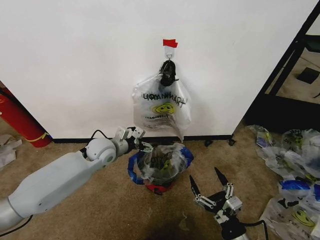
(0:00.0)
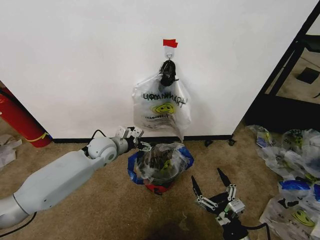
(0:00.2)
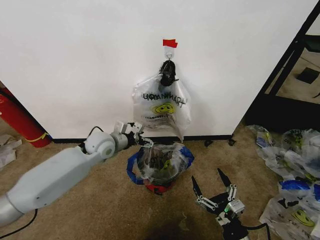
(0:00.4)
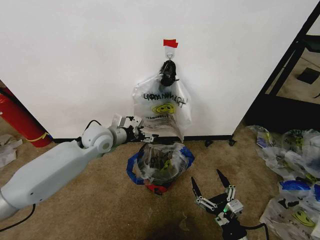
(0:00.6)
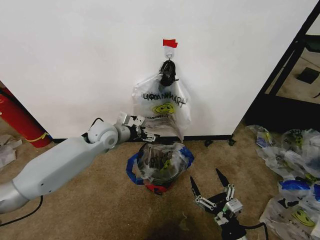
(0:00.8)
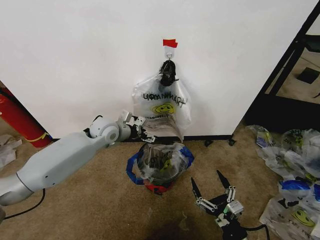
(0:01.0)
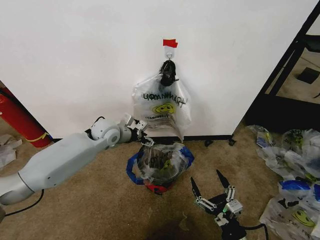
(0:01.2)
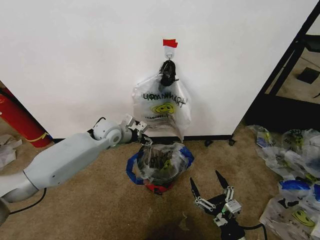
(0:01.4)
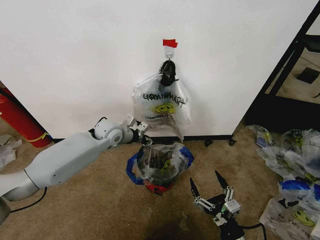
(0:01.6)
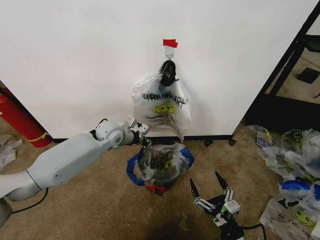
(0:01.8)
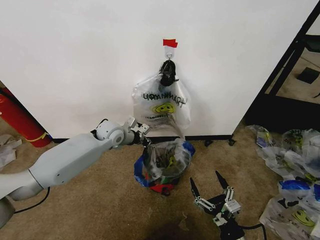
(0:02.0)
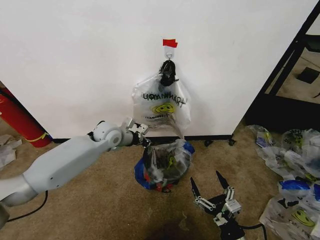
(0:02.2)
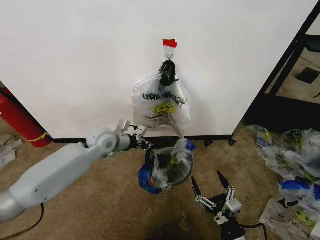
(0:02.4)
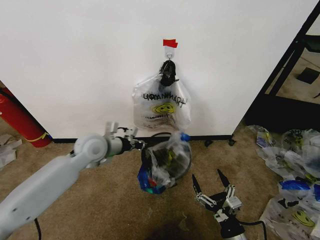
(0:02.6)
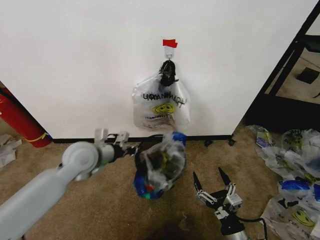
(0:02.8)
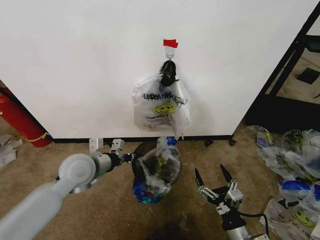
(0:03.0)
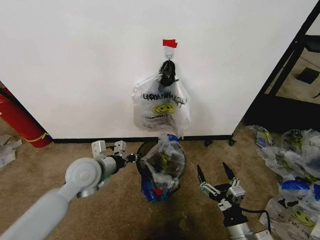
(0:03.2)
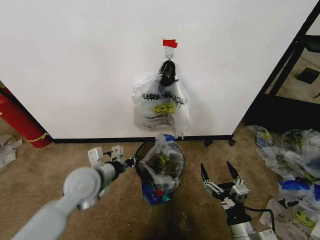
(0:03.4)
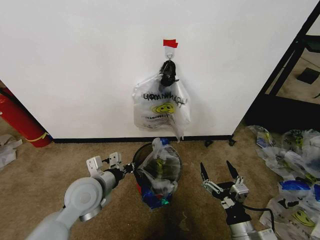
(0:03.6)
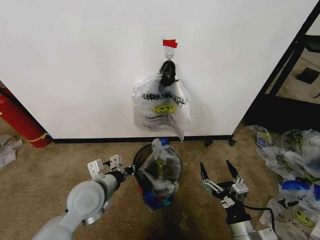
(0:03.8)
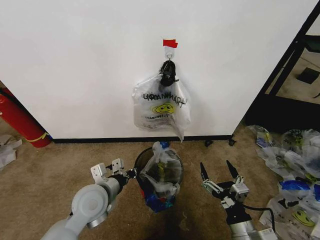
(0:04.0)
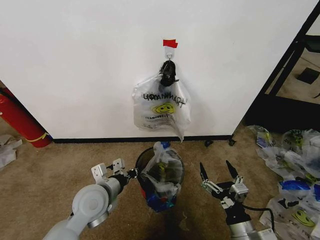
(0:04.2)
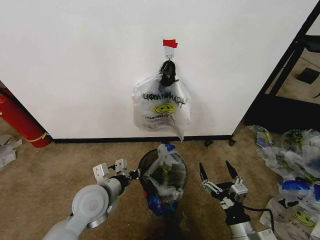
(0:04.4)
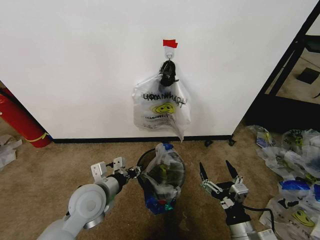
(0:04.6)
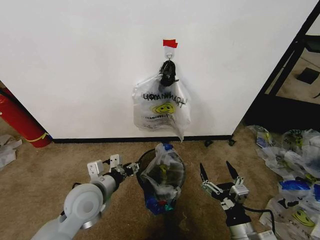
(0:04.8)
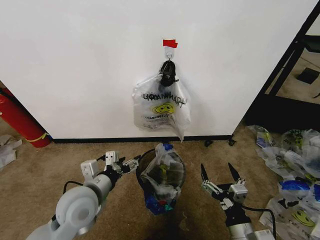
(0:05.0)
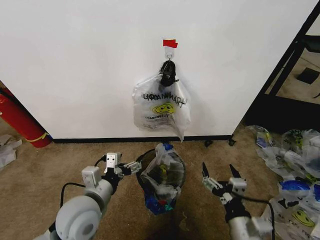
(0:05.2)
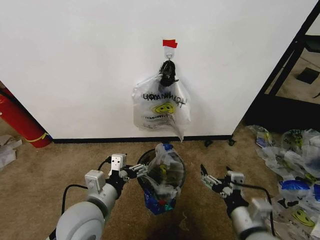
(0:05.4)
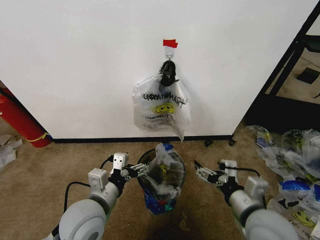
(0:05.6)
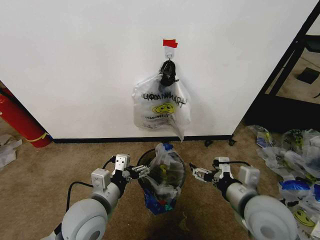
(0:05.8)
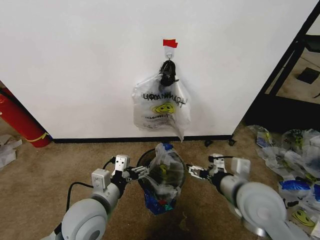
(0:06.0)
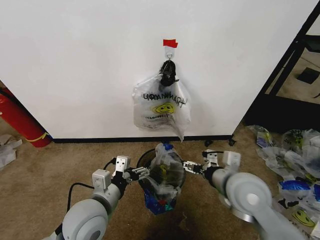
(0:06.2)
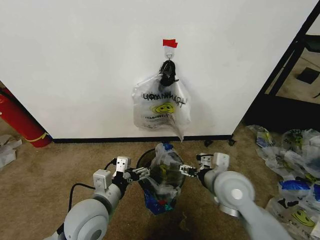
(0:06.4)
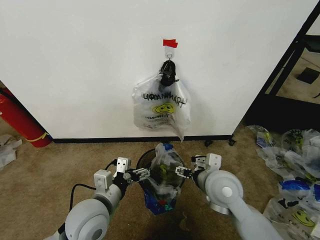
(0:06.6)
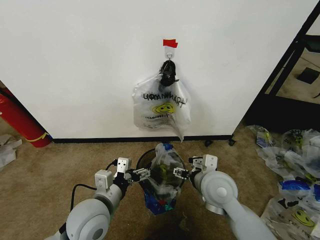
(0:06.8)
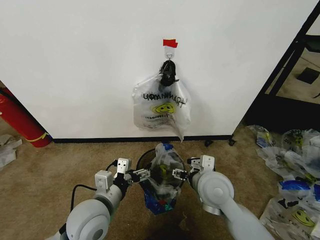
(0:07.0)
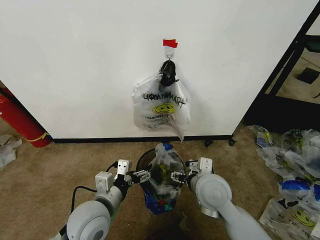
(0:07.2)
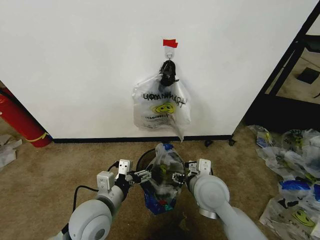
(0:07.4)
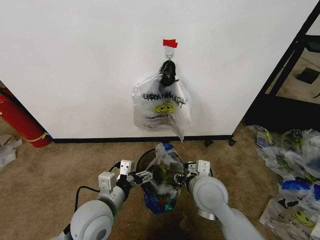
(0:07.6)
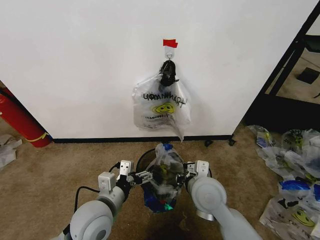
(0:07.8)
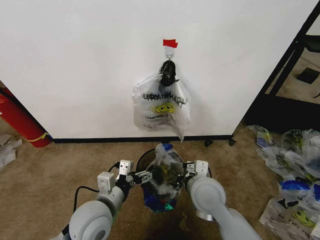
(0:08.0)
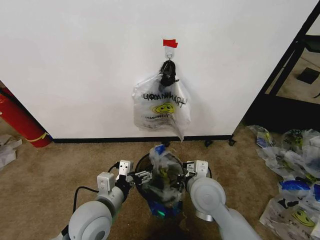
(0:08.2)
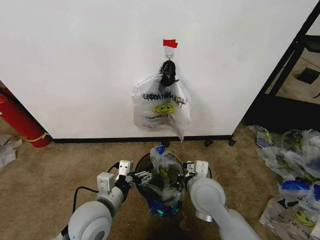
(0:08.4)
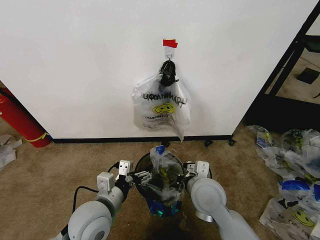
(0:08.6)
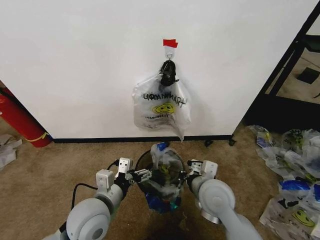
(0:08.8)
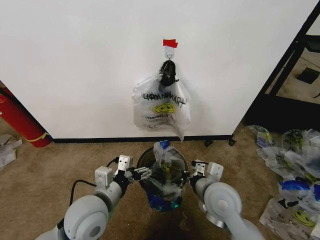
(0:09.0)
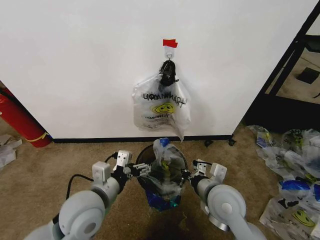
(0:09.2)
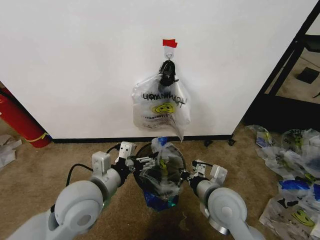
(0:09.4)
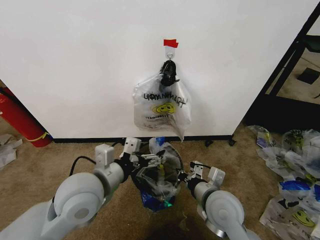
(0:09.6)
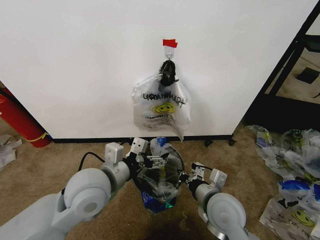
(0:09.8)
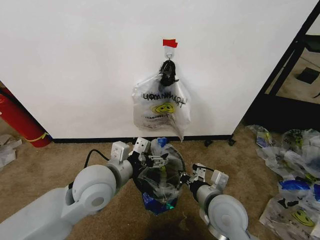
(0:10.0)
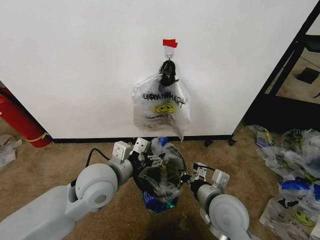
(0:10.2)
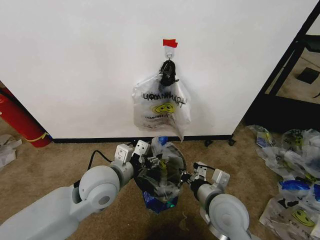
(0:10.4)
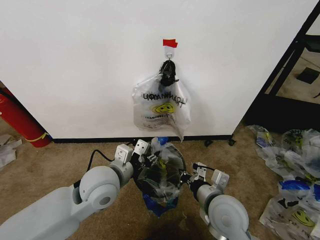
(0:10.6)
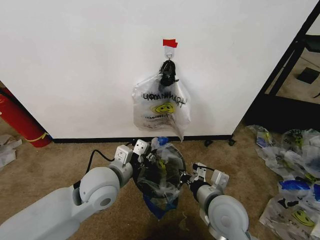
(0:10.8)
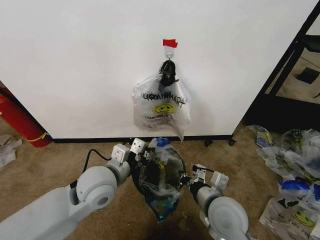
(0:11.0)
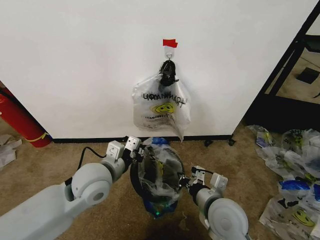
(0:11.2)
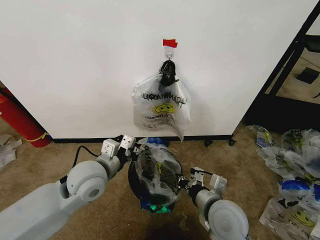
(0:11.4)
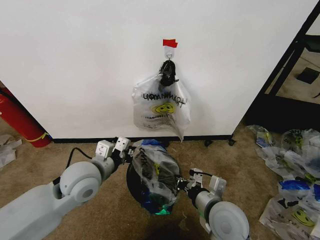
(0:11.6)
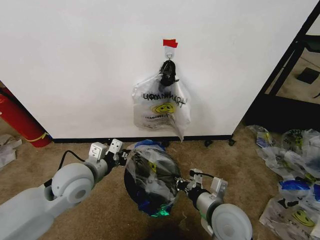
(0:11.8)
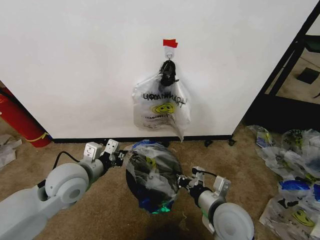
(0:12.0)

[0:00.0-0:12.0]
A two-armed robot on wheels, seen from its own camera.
Task of the whole recording: Pick up the garbage bag from the wall and place it over the trash bin.
0:00.0 to 0:01.6: The left gripper heads forward, covering some 5 cm, and closes.
0:01.6 to 0:03.0: The left gripper is displaced backward by roughly 15 cm.
0:03.0 to 0:04.4: The left gripper is displaced backward and downward by roughly 10 cm.
0:04.4 to 0:06.0: The left gripper is displaced backward by about 5 cm, and opens up. The right gripper heads upward and forward, covering approximately 20 cm.
0:06.0 to 0:07.6: The right gripper is displaced to the left and downward by some 10 cm, and closes its fingers.
0:07.6 to 0:09.0: The right gripper closes its fingers.
0:09.0 to 0:10.4: The left gripper moves forward, some 5 cm, and closes.
0:10.4 to 0:12.0: The left gripper is displaced to the left by about 10 cm, and closes up.

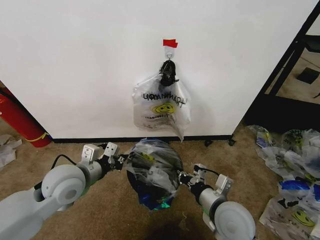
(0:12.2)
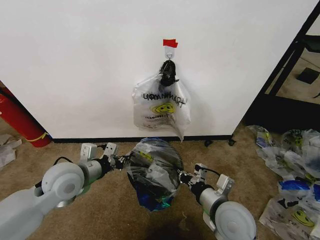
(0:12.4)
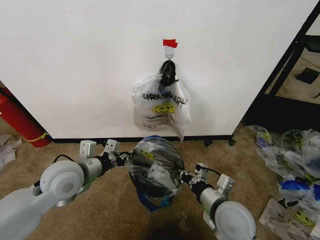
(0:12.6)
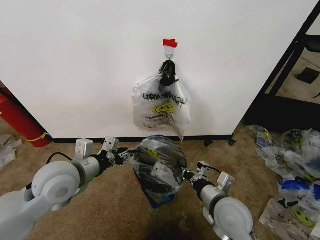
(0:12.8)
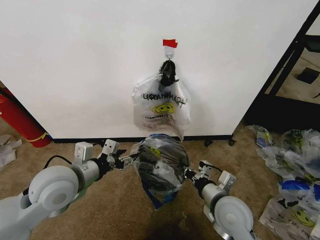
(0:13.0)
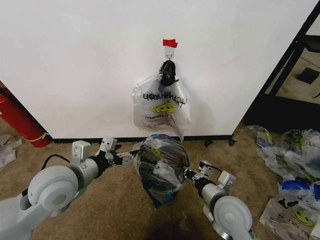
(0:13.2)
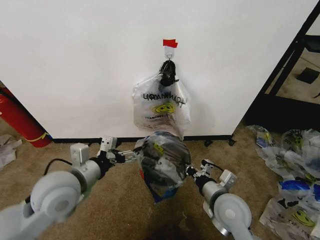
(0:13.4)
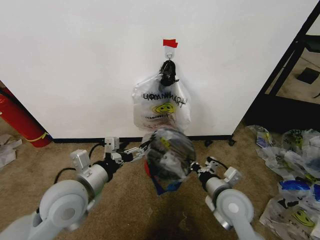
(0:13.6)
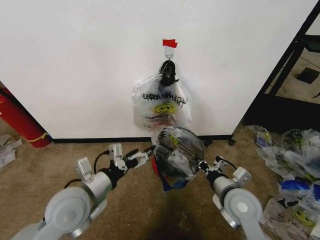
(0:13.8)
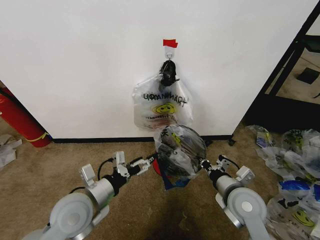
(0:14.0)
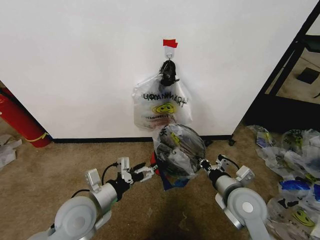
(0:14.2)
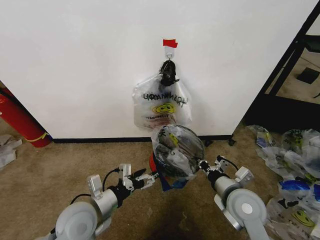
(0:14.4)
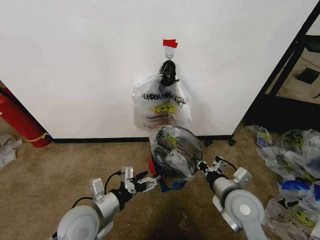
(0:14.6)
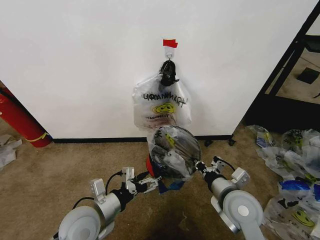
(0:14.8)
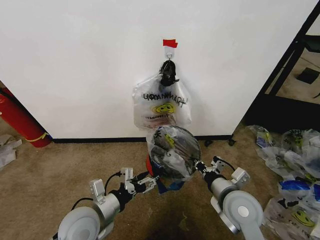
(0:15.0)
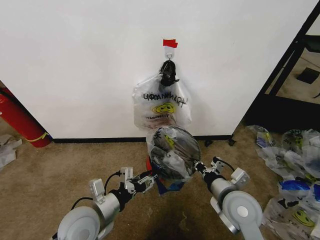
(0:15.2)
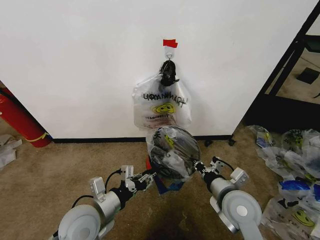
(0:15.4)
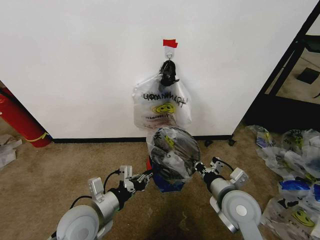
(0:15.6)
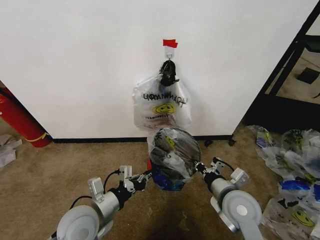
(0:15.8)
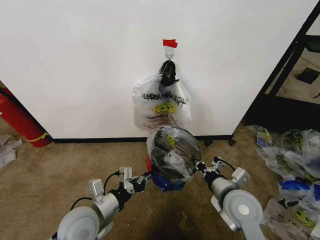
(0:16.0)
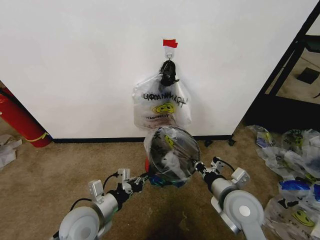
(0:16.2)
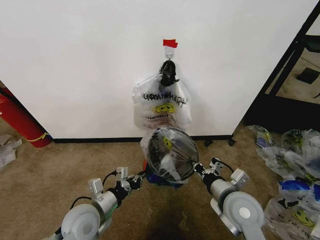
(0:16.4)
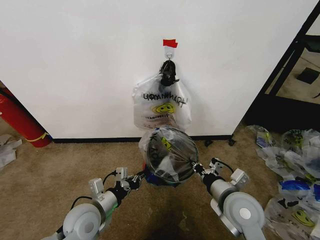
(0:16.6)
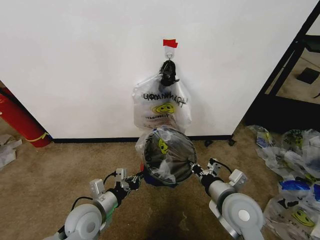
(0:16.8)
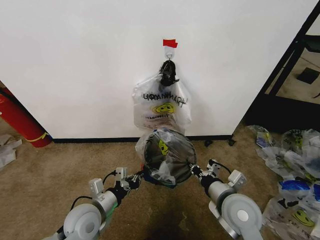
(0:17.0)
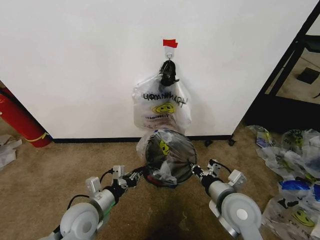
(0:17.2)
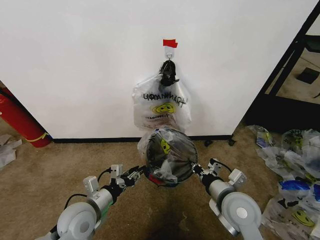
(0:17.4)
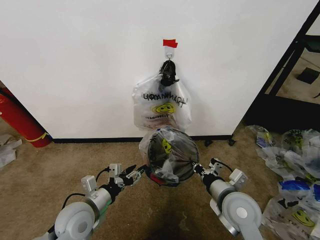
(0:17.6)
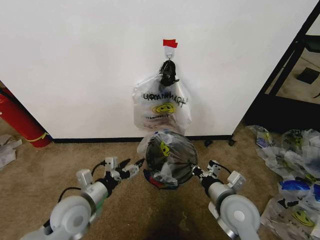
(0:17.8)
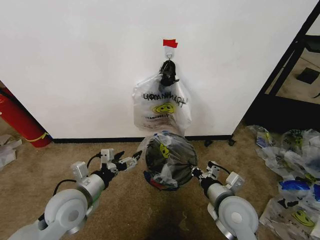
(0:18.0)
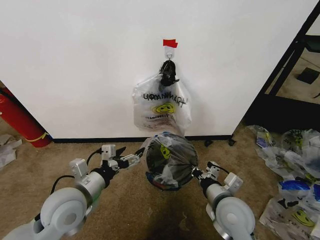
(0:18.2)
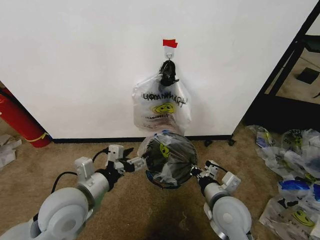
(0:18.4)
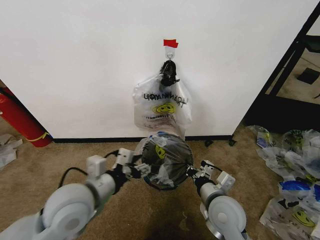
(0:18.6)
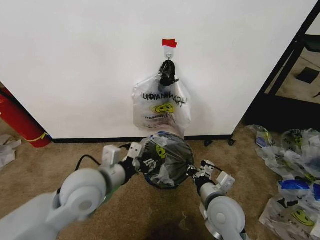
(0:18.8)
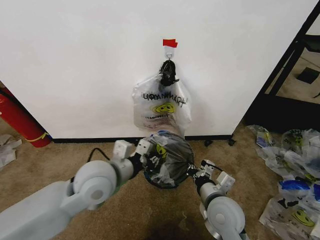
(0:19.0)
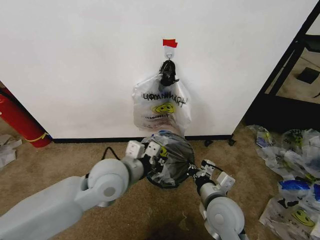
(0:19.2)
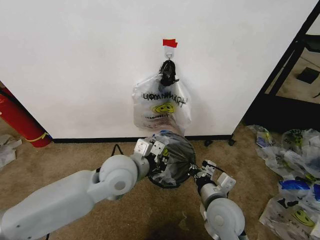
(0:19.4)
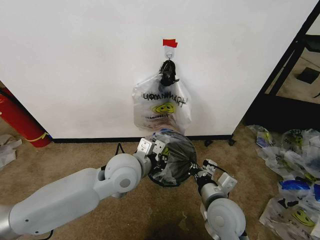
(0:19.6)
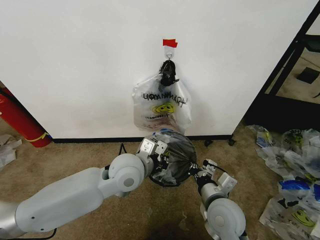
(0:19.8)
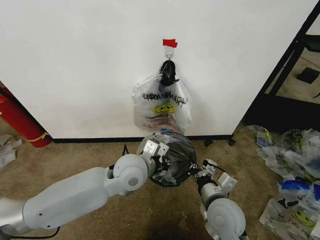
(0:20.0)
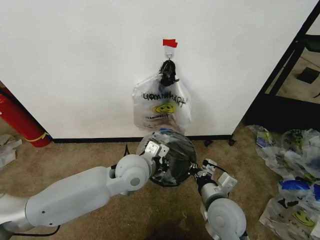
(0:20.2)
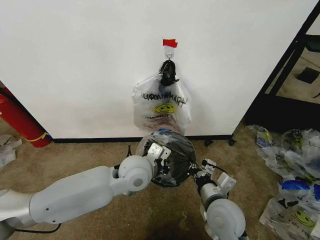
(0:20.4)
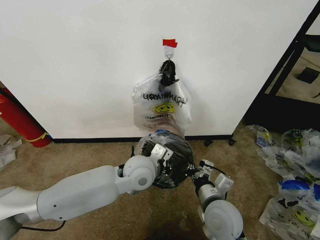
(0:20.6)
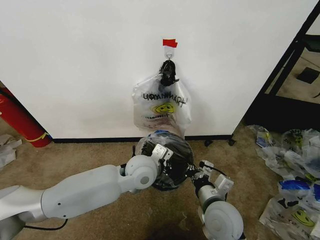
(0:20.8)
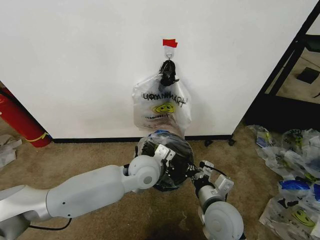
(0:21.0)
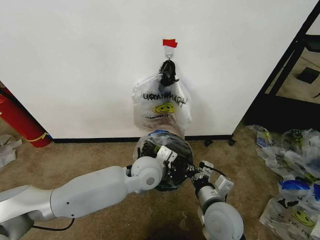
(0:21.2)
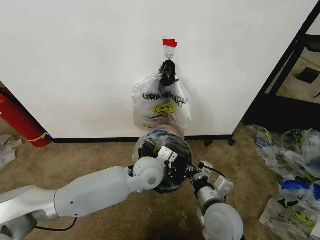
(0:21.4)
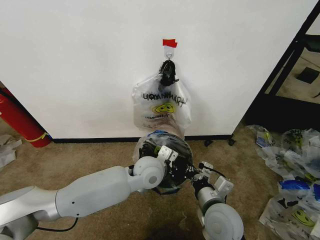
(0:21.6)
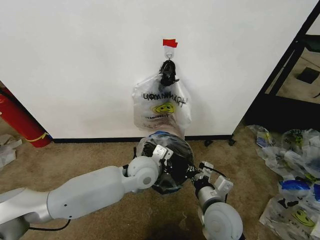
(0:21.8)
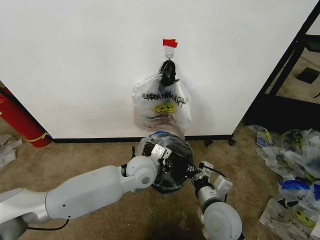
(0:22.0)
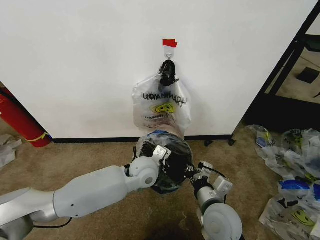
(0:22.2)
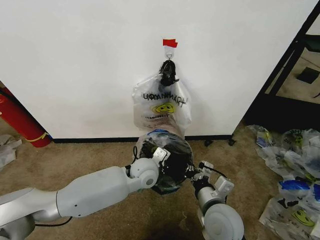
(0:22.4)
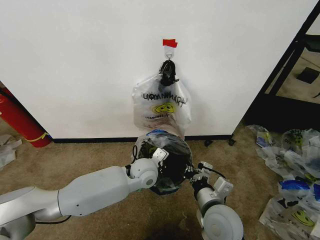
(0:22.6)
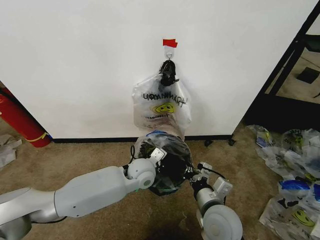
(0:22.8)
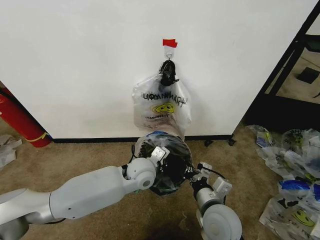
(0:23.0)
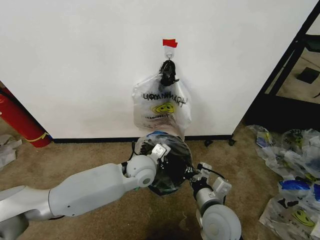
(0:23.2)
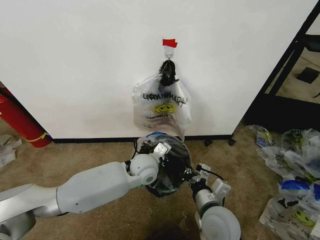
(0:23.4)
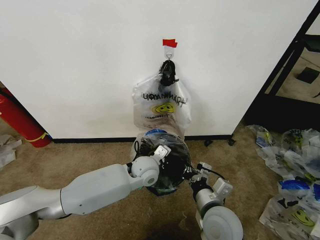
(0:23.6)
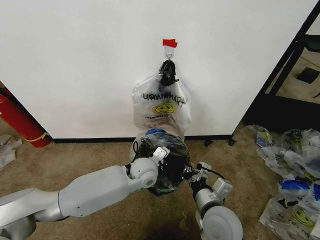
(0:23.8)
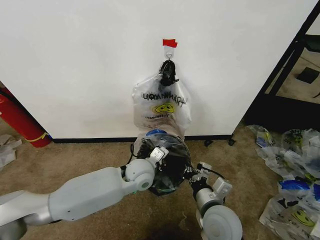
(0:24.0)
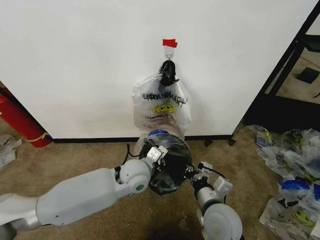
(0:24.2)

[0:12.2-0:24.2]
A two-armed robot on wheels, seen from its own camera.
Task of the whole recording: Pick up the garbage bag from the wall and place it over the trash bin.
0:12.2 to 0:13.8: The right gripper shifts by about 5 cm. Meanwhile the left gripper goes roughly 5 cm backward, and opens its fingers.
0:13.8 to 0:15.2: The left gripper is displaced downward by roughly 5 cm, and closes.
0:15.2 to 0:16.6: The left gripper ends up some 5 cm from where it was, and closes its fingers.
0:16.6 to 0:18.2: The left gripper moves upward, some 10 cm, and opens.
0:18.2 to 0:19.8: The left gripper moves to the right and forward, about 15 cm, and closes its fingers.
0:19.8 to 0:21.2: The left gripper shifts roughly 5 cm downward.
0:21.2 to 0:22.6: The left gripper moves downward, about 5 cm.
0:22.6 to 0:24.2: The grippers make only small movements.
